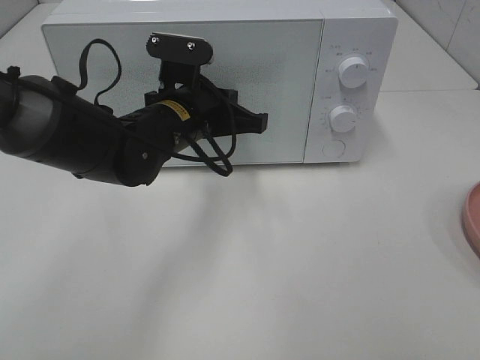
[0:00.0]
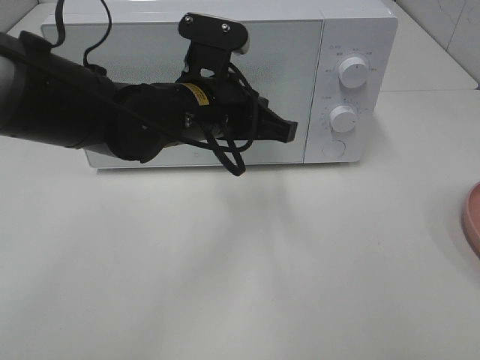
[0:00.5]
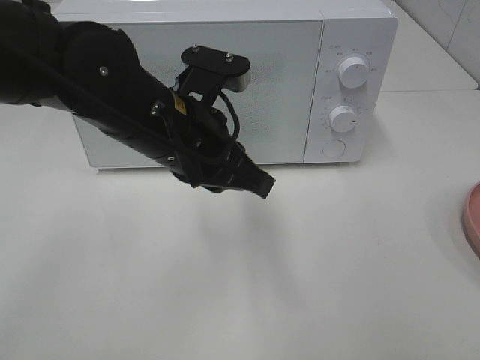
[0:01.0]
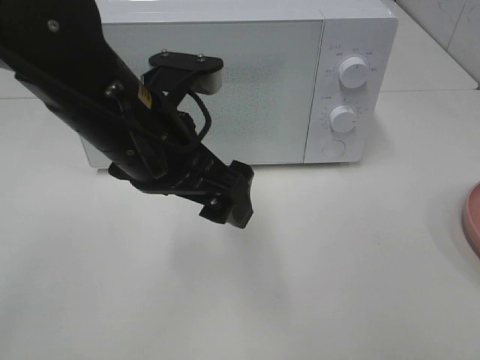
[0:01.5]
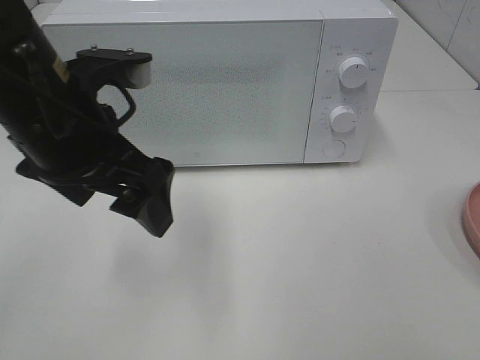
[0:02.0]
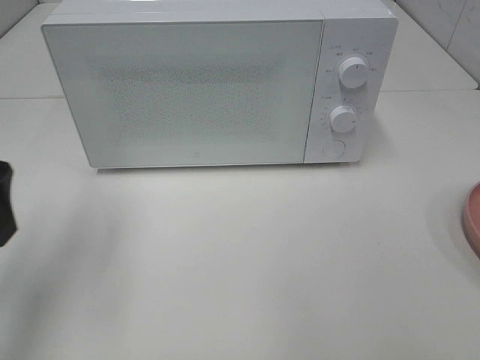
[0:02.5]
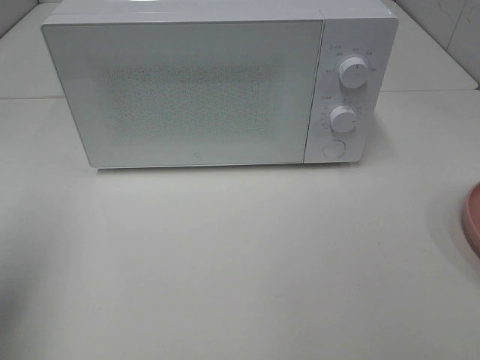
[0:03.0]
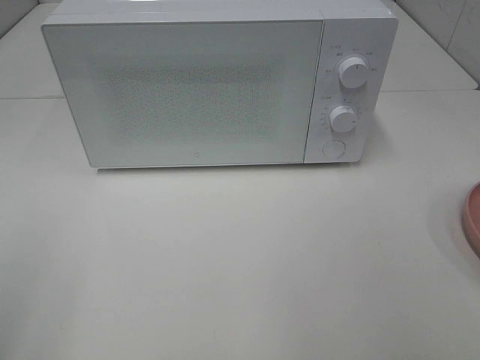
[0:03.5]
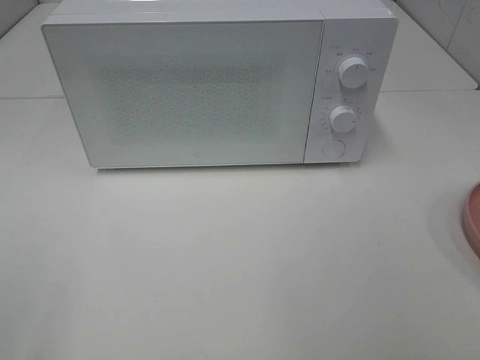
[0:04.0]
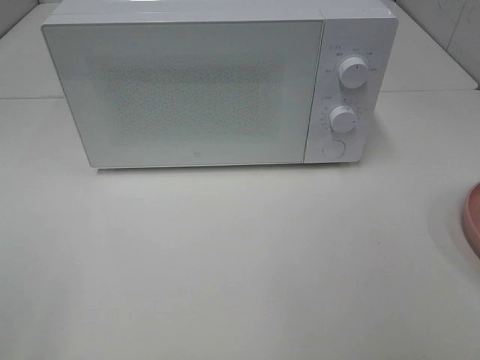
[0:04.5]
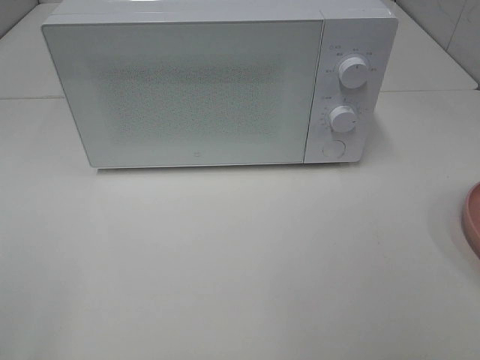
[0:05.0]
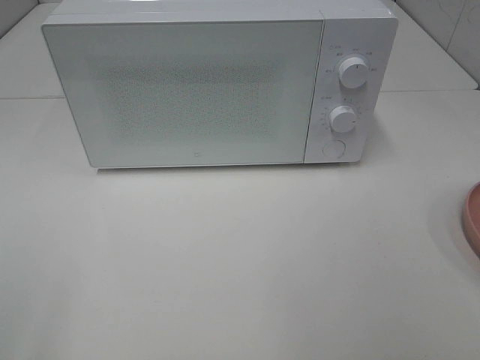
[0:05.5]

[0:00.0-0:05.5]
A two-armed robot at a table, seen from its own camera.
Task of the whole recording: Heat the burger.
0:00.0 to 0:02.0: The left gripper shifts approximately 15 cm backward, upward and to the left, and opens its fingers.
0:02.0 to 0:03.5: The left gripper moves backward and to the left, roughly 25 cm.

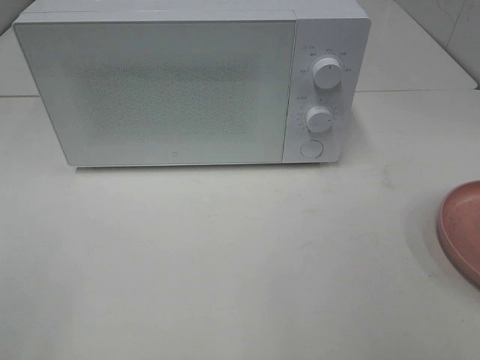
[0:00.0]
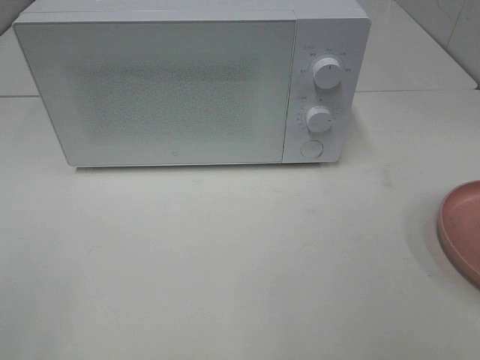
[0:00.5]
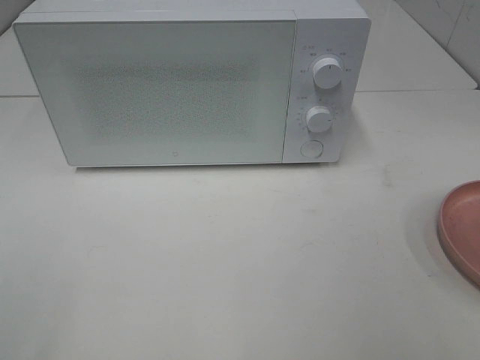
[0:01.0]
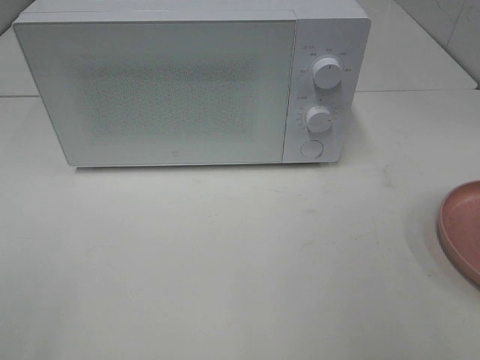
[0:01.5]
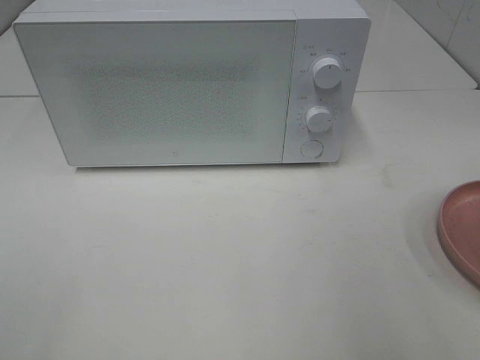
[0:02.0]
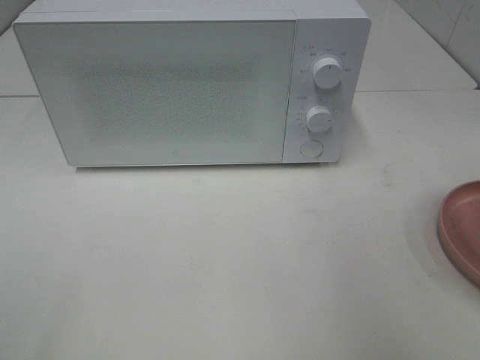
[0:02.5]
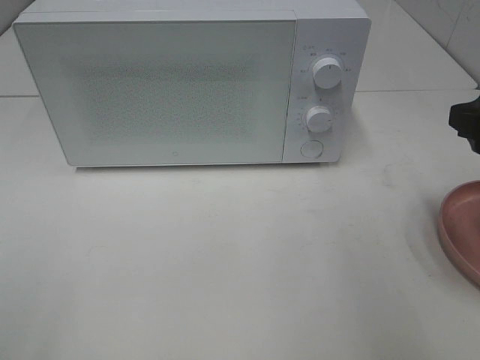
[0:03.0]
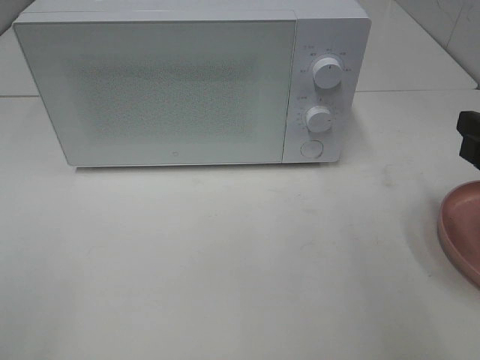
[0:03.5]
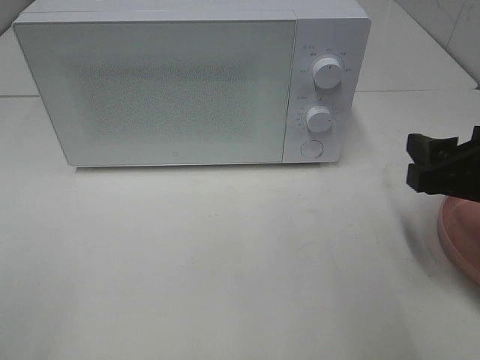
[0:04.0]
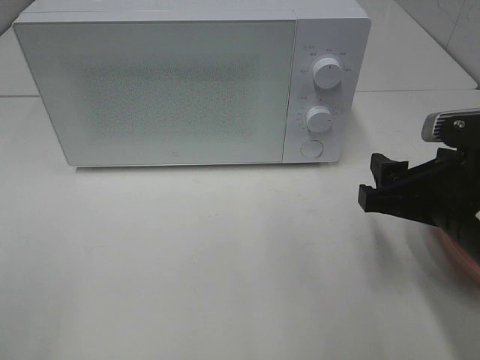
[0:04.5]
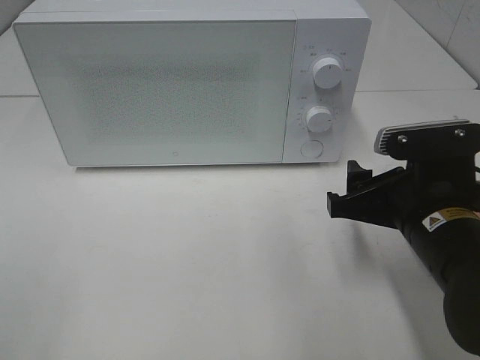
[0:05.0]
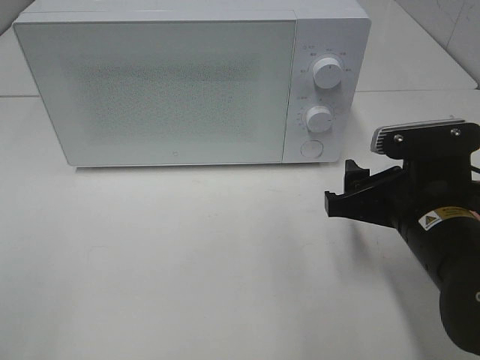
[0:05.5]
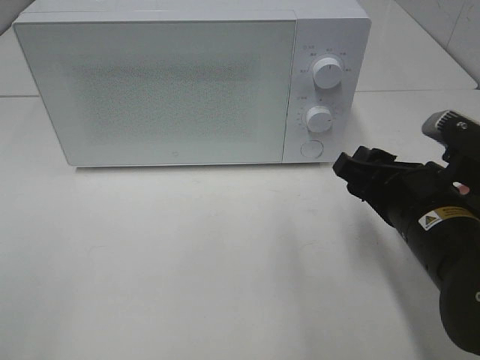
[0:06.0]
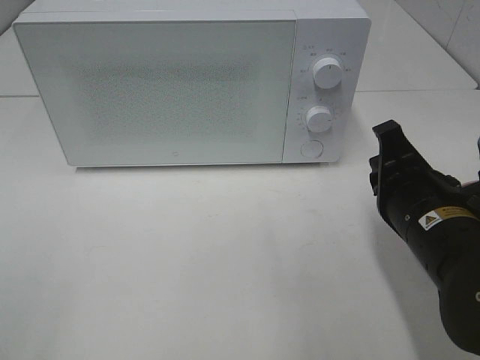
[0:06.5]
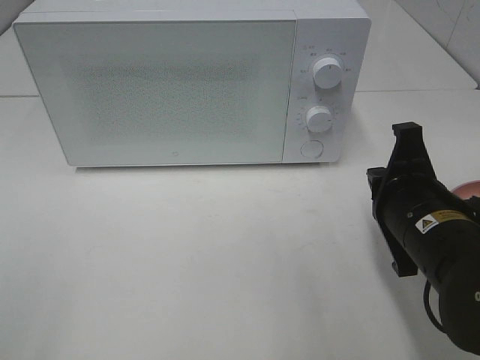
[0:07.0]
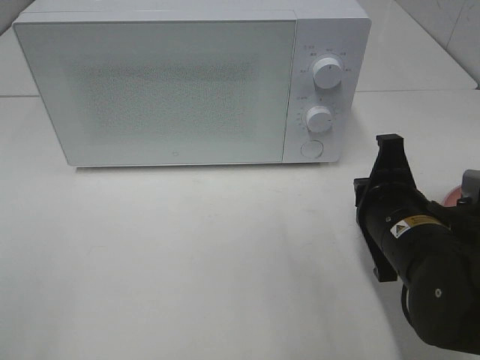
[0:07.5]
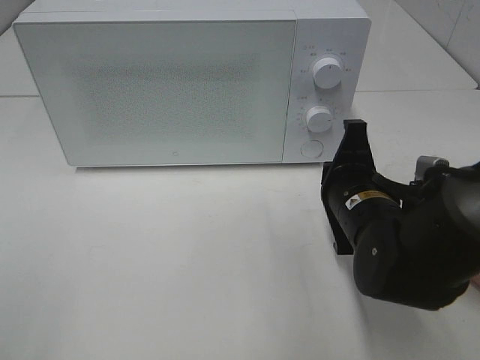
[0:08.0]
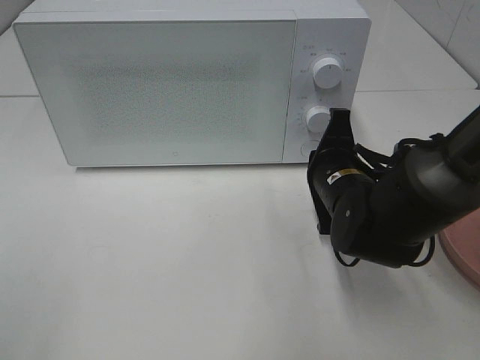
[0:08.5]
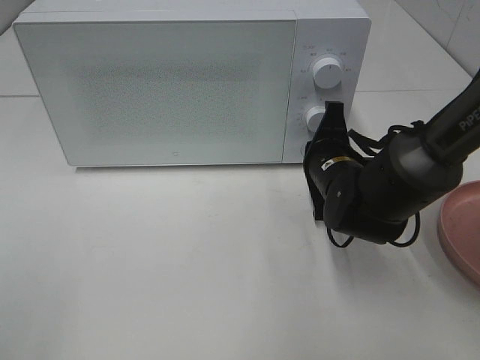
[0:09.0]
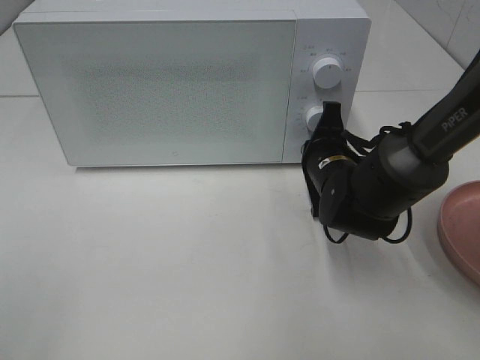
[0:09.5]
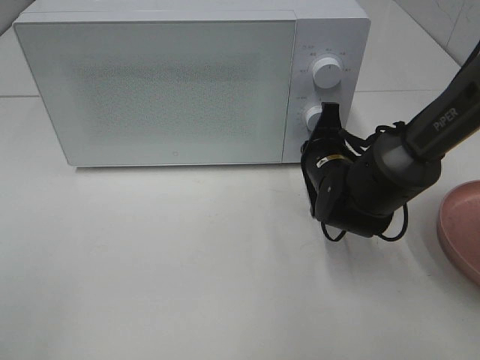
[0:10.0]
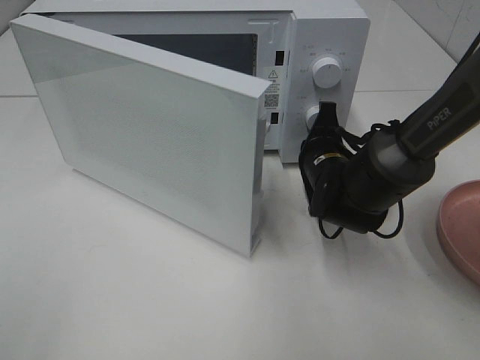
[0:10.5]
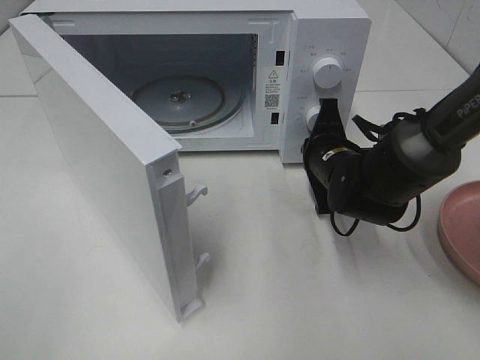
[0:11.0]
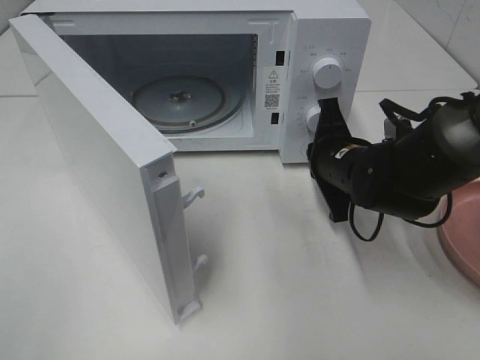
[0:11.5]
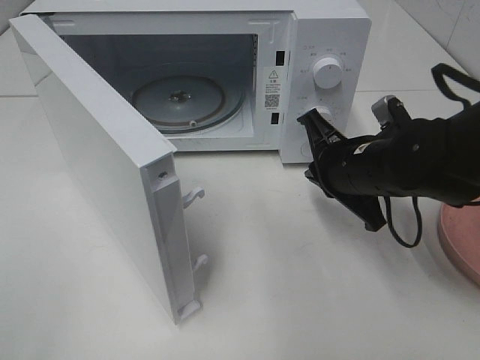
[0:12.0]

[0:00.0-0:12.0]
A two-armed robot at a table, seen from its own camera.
Task of the whole recording: Heat the burger.
Step, 0:00.0 to 0:11.5: Right hand: press the switch.
0:02.0 to 0:04.0: The right gripper goes about 15 cm downward and forward.
0:04.0 to 0:06.0: The right gripper goes some 5 cm to the left.
0:06.0 to 0:08.0: The right gripper goes some 5 cm forward, and closes up.
0:08.0 to 0:10.0: The right gripper is displaced forward by approximately 10 cm.
0:10.0 to 0:12.0: The right gripper goes some 10 cm backward and upward.

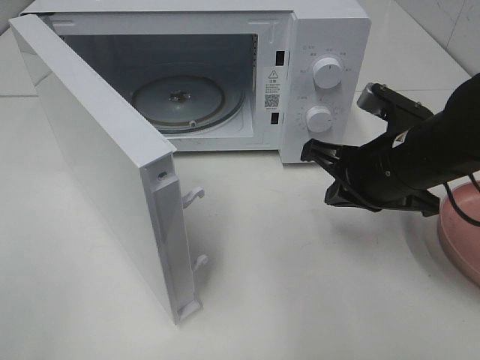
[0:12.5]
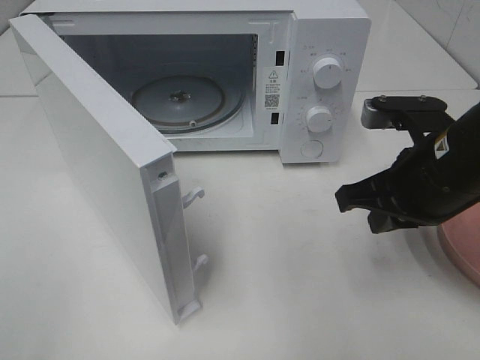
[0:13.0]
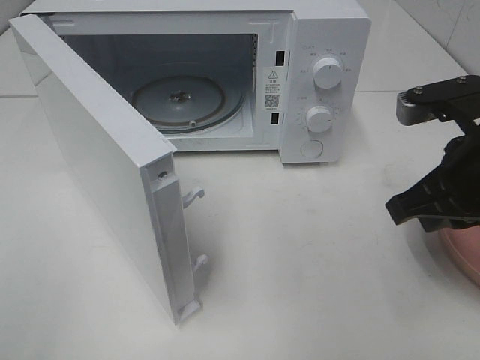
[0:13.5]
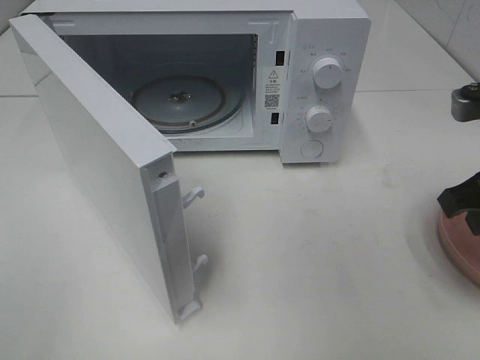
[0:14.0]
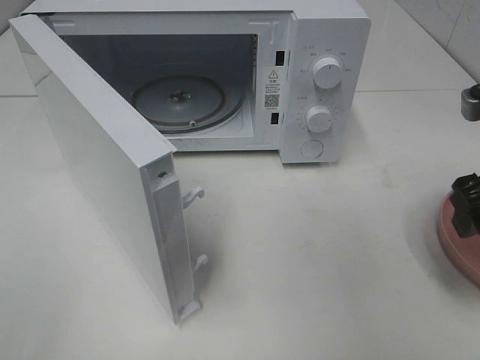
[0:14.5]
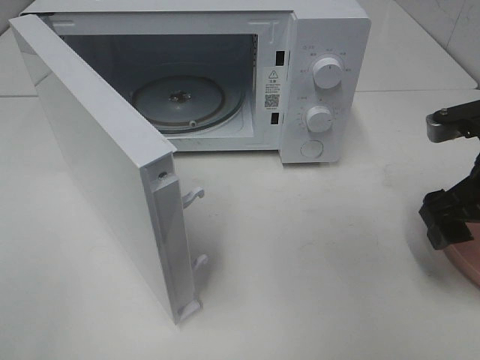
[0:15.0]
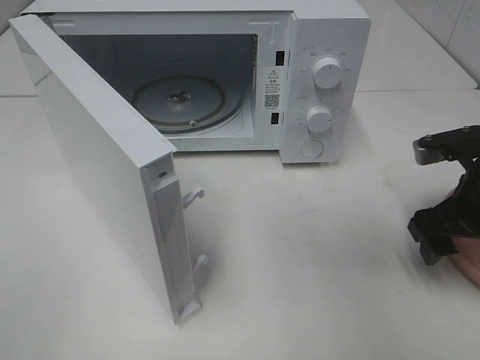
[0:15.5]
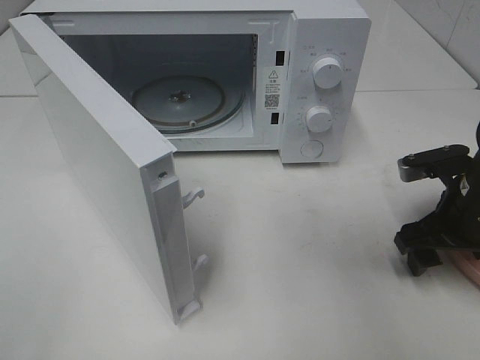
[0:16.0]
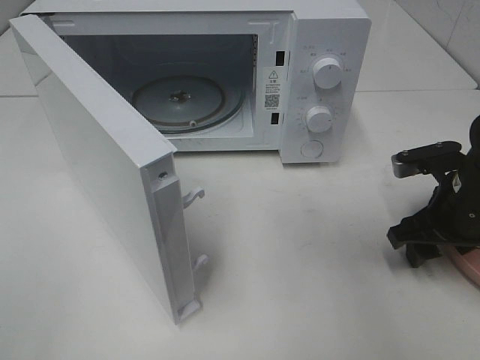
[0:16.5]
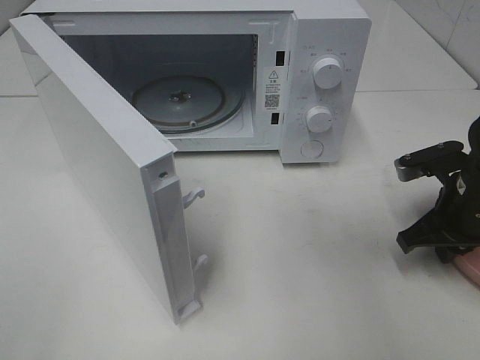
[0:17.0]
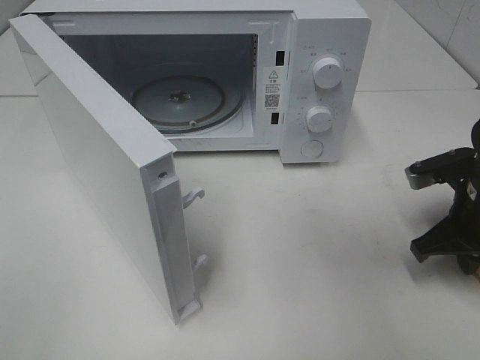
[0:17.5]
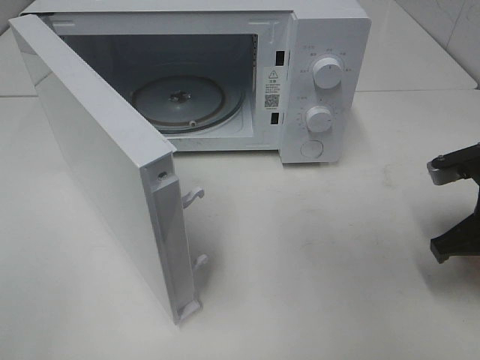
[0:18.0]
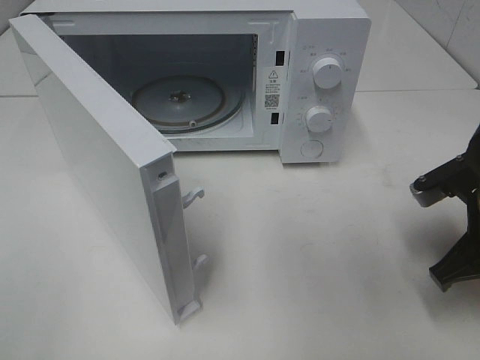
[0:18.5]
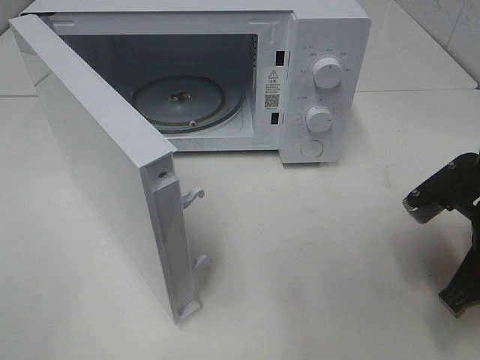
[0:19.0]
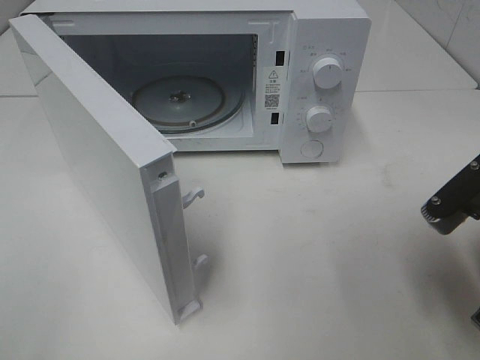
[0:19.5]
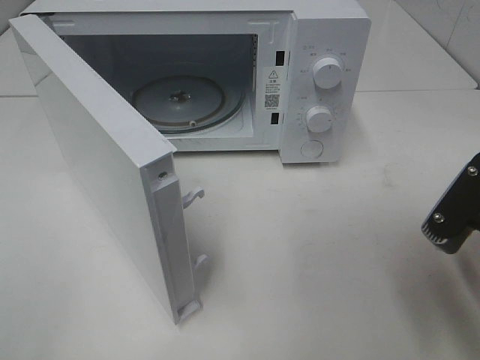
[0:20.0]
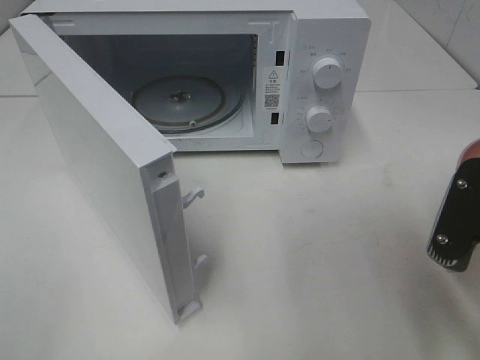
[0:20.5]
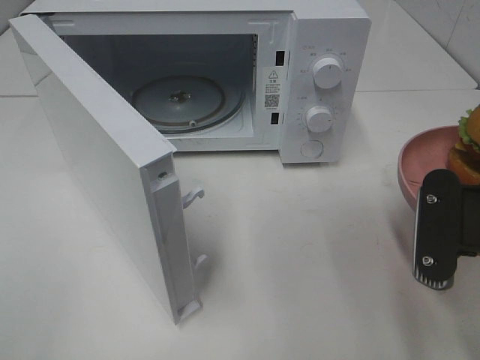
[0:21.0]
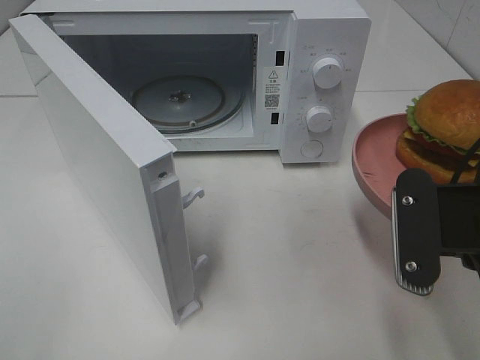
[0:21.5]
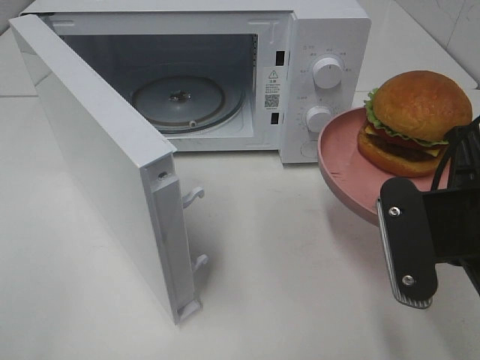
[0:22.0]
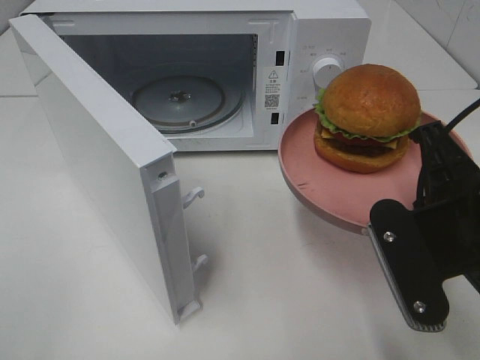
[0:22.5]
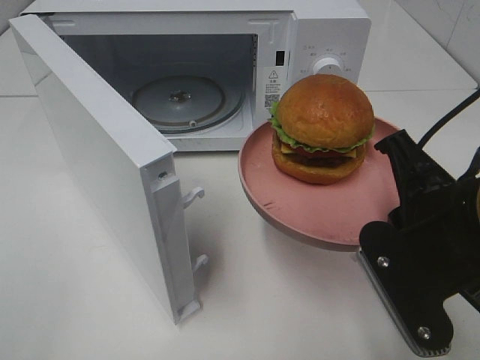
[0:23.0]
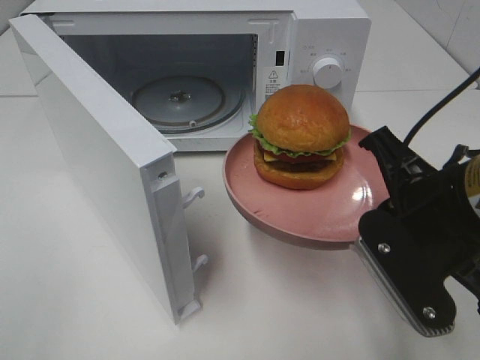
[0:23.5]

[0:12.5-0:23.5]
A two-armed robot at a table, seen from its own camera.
Task of the whole recording: Heat the burger.
Step, 0:12.5 to 0:17.5: Right hand: grab the plate with the hamburger.
0:12.5 to 0:14.5: The right gripper moves to the right, upward and backward, approximately 10 cm, and opens up.
0:14.5 to 0:16.0: The right gripper shifts some 15 cm downward and forward.
0:16.0 to 0:18.0: The right gripper closes.
0:18.0 to 0:20.0: The right gripper moves backward, upward and to the left, some 15 cm.
